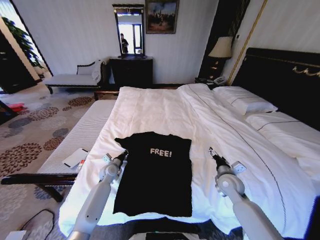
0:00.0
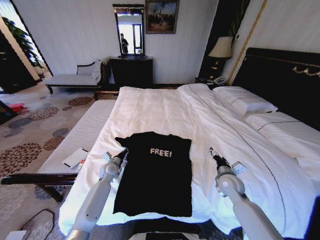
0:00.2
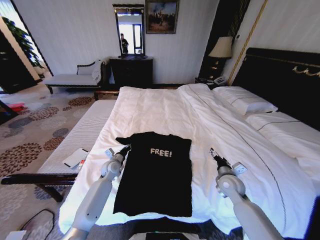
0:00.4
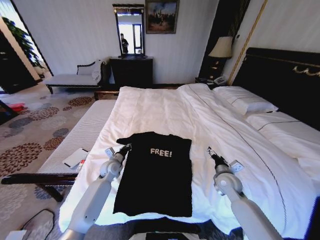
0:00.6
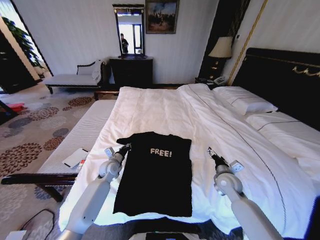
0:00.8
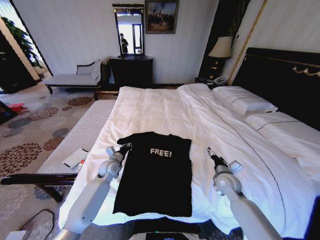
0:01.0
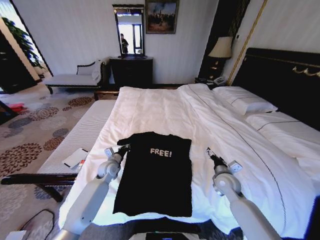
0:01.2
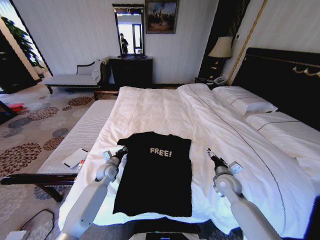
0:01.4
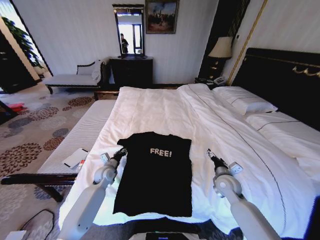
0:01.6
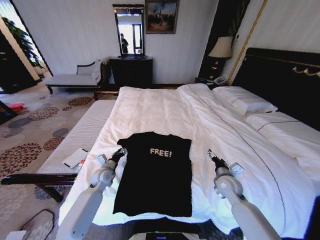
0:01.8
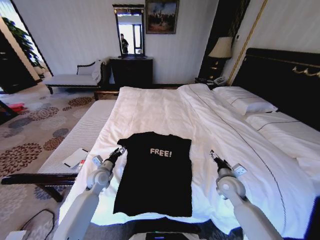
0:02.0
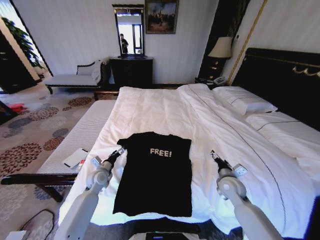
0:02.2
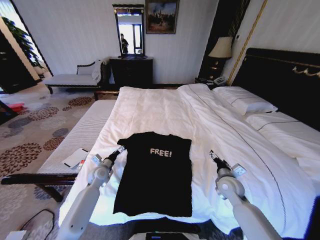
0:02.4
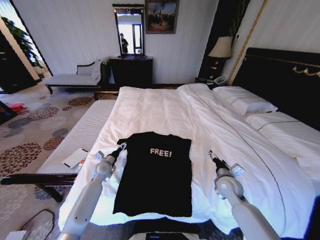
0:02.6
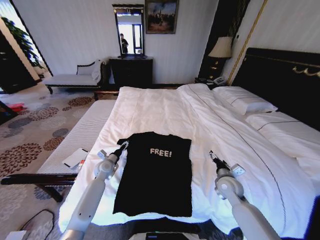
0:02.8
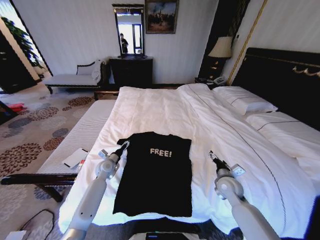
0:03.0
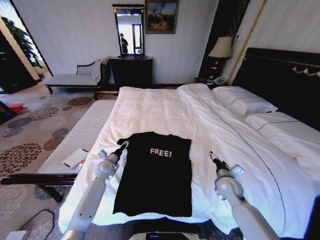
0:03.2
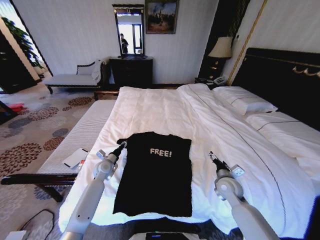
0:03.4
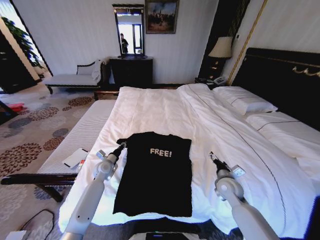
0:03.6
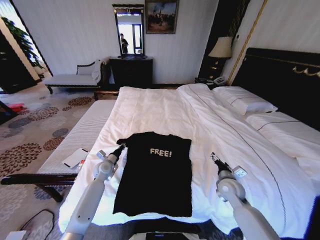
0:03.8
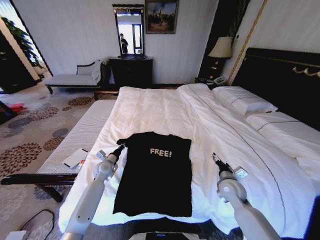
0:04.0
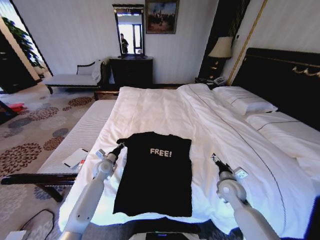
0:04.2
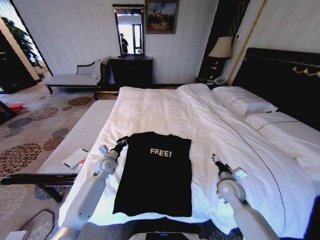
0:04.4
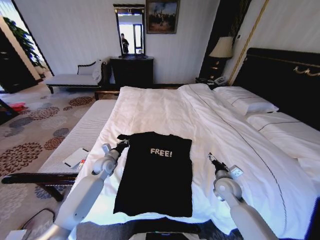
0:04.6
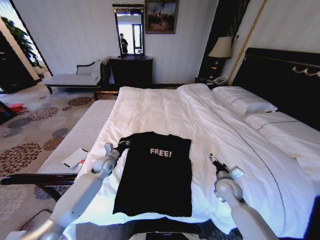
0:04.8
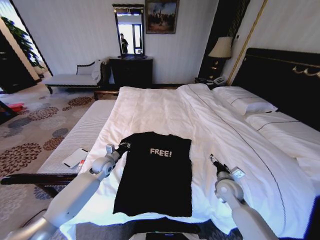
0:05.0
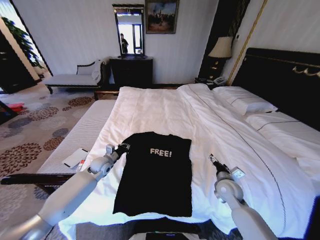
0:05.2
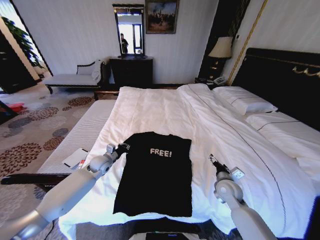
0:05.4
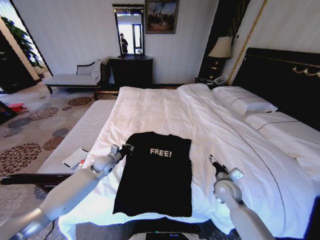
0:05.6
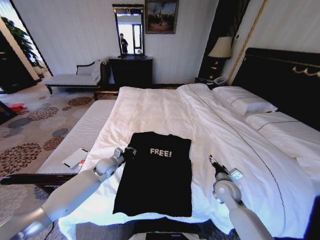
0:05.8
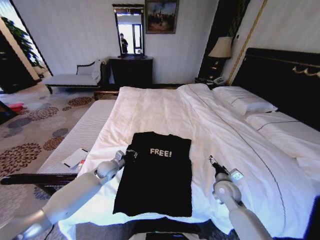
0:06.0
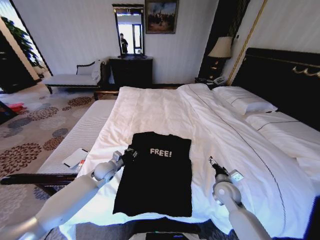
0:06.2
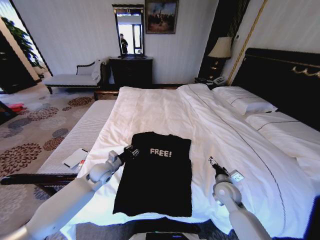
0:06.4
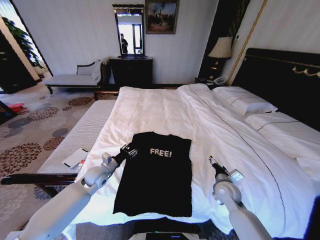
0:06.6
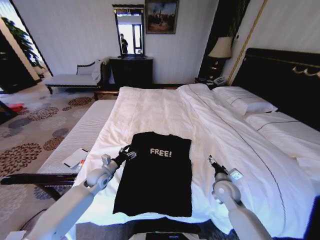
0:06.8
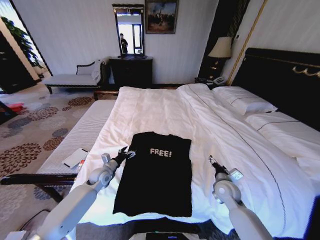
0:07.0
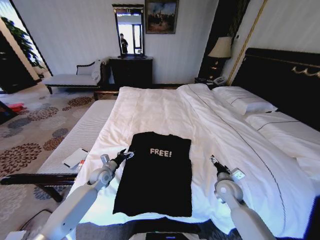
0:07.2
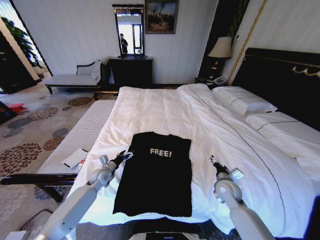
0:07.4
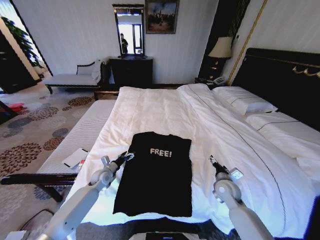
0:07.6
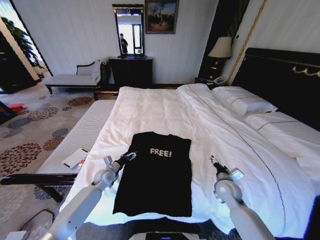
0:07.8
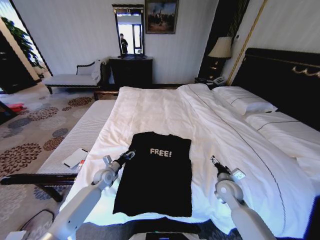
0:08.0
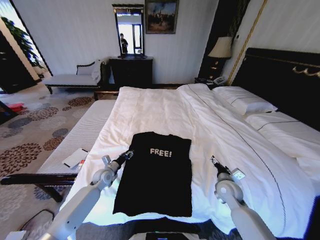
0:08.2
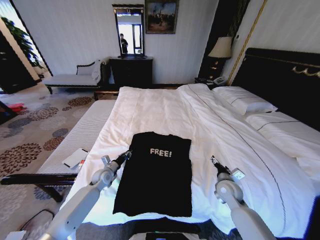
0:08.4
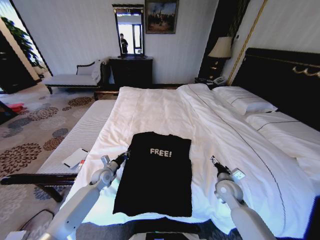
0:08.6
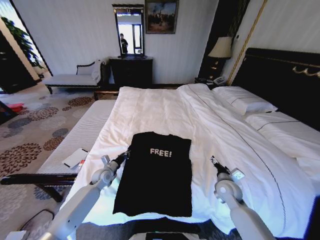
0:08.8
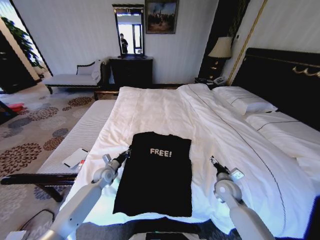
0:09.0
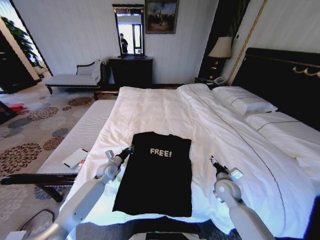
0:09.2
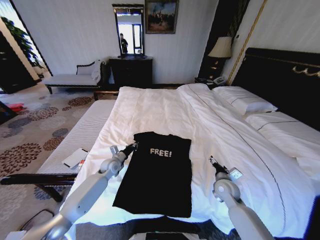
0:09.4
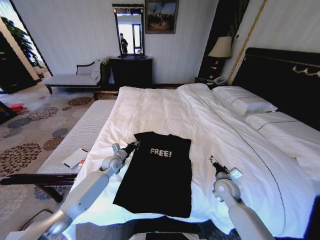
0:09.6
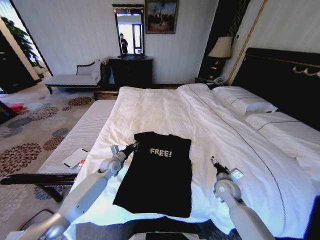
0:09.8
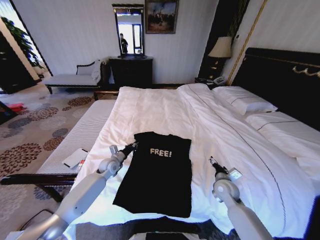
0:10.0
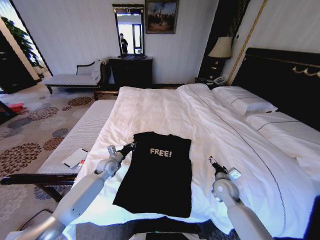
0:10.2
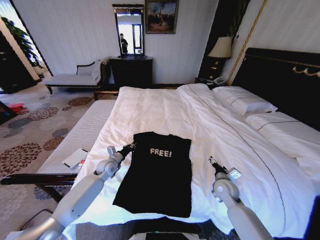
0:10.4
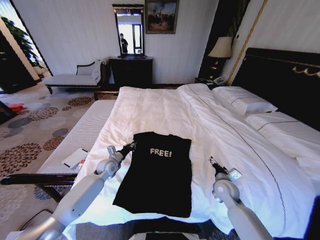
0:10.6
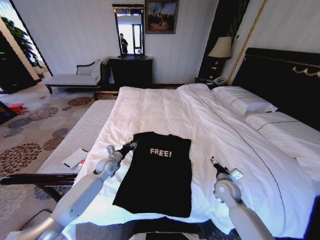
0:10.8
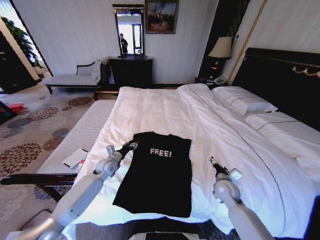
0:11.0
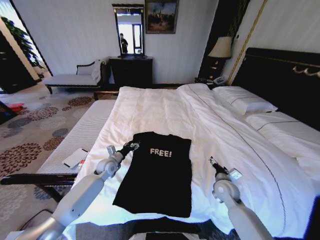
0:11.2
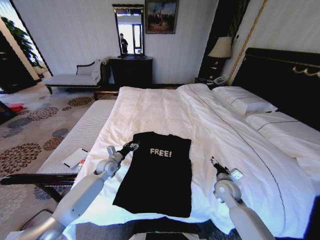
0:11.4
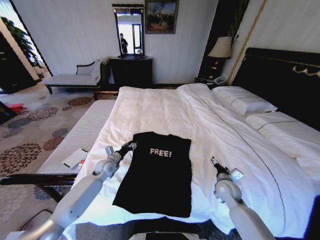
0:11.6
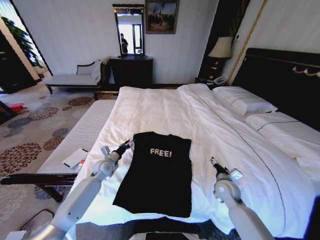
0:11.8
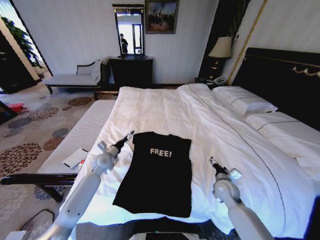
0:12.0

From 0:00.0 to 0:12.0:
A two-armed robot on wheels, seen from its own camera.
Task of the whole recording: Fold the clothes on the bed.
From 0:01.6 to 0:03.0: The left gripper opens its fingers.
From 0:03.0 to 0:04.4: The left gripper closes up.
From 0:06.0 to 0:07.6: The left gripper shifts by some 5 cm, and opens.
From 0:07.6 to 0:09.0: The left gripper closes its fingers.
From 0:09.0 to 0:10.4: The left gripper changes place by some 5 cm.
From 0:10.4 to 0:12.0: The left gripper goes roughly 5 cm upward, and opens its fingers.

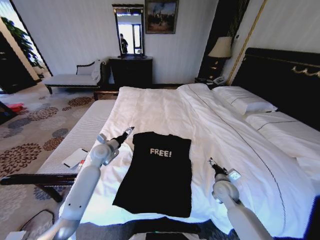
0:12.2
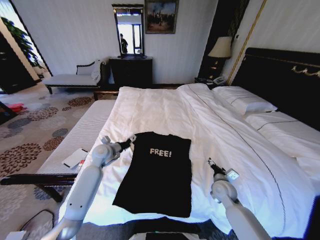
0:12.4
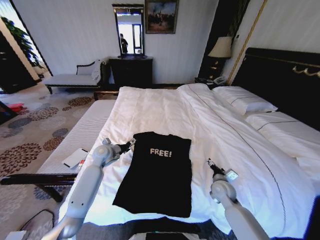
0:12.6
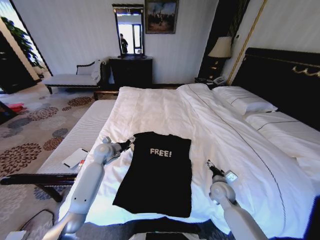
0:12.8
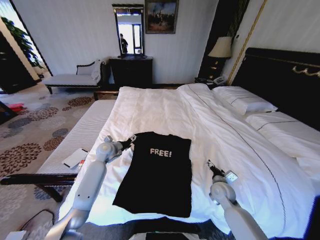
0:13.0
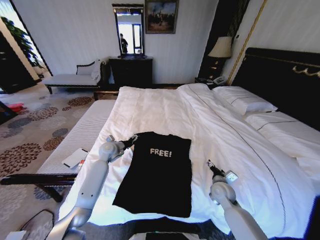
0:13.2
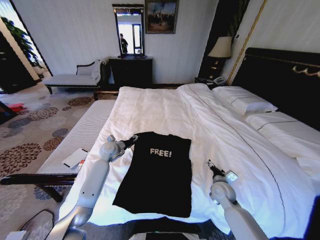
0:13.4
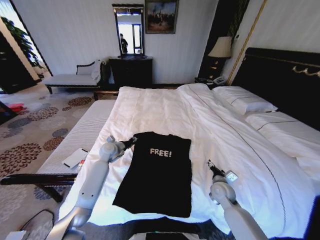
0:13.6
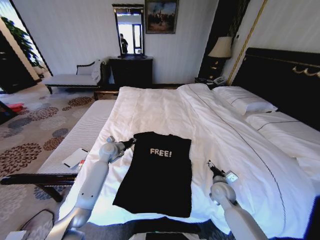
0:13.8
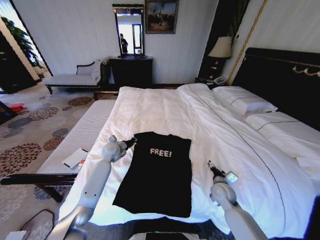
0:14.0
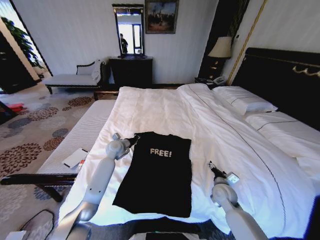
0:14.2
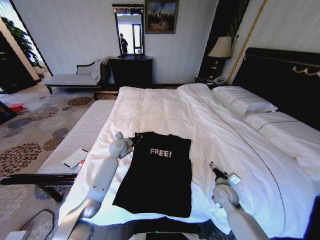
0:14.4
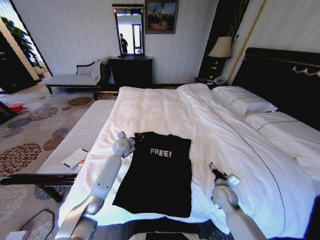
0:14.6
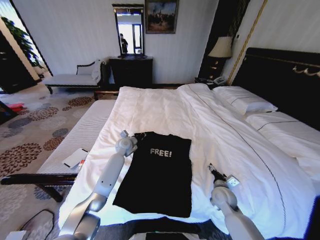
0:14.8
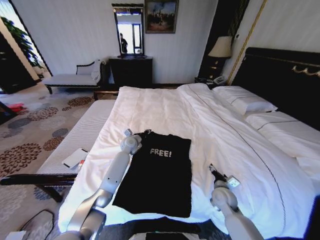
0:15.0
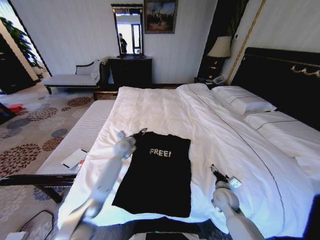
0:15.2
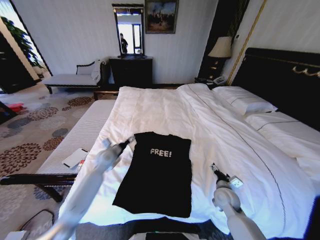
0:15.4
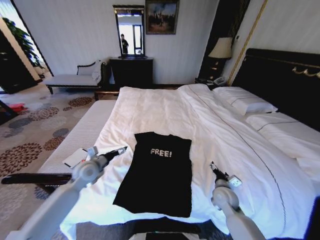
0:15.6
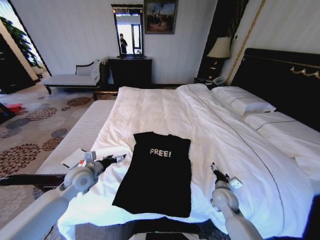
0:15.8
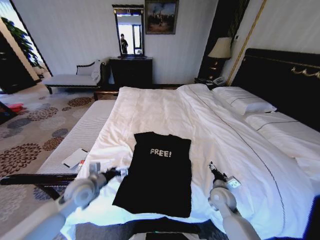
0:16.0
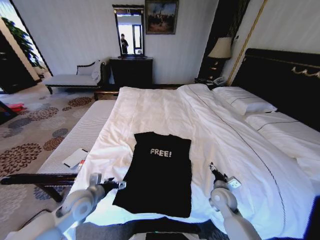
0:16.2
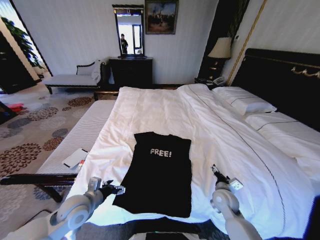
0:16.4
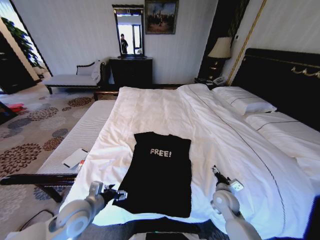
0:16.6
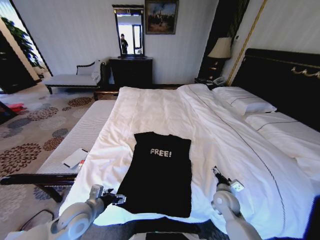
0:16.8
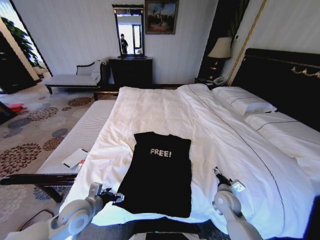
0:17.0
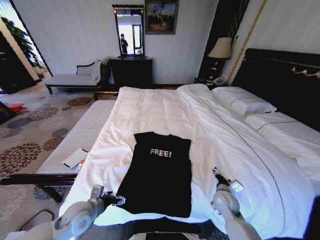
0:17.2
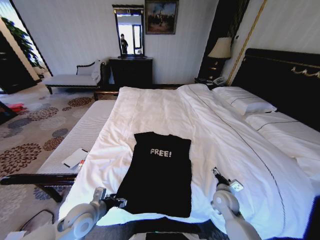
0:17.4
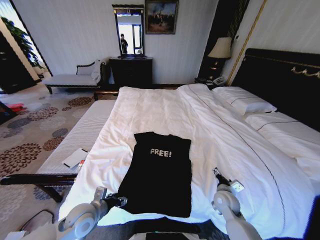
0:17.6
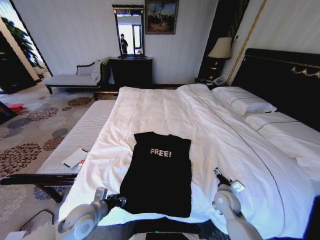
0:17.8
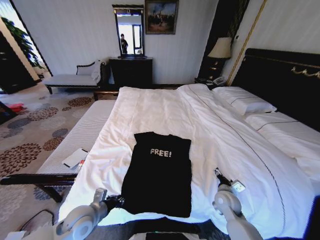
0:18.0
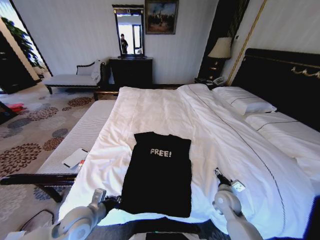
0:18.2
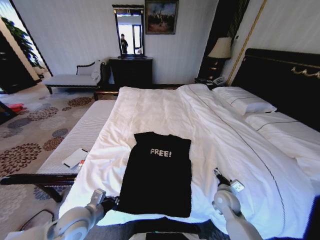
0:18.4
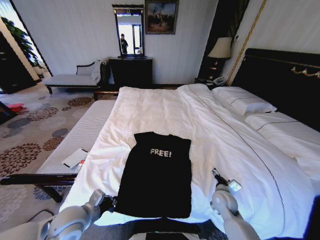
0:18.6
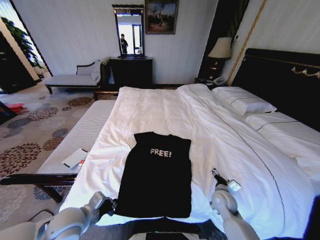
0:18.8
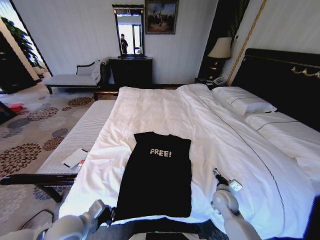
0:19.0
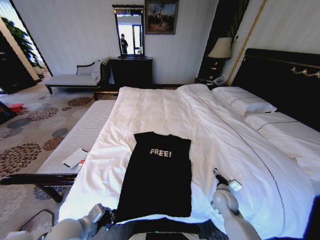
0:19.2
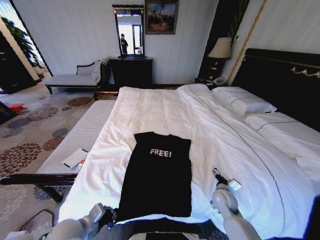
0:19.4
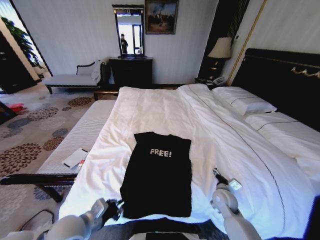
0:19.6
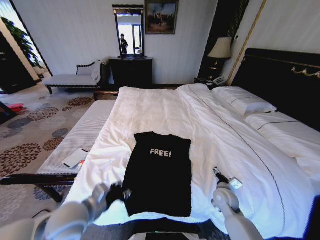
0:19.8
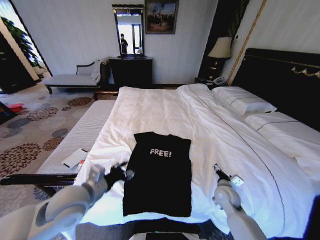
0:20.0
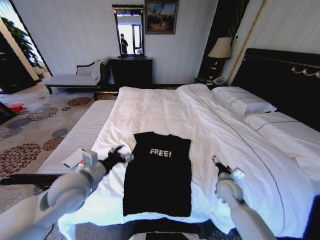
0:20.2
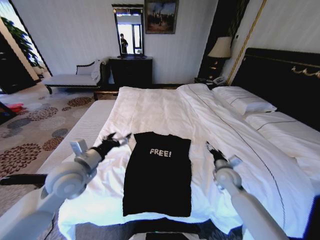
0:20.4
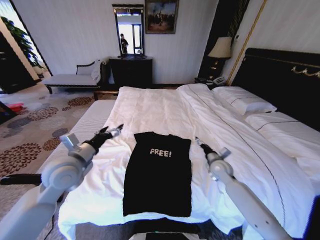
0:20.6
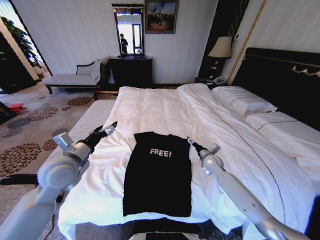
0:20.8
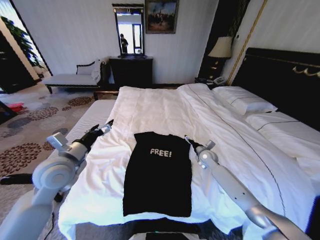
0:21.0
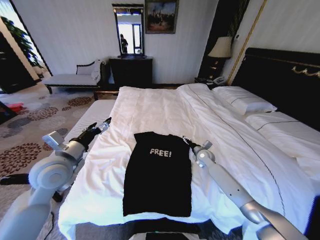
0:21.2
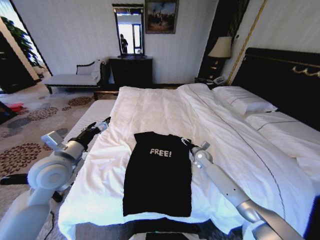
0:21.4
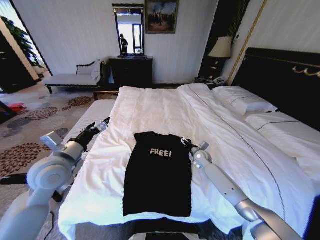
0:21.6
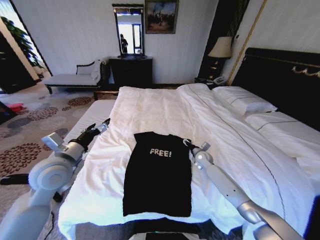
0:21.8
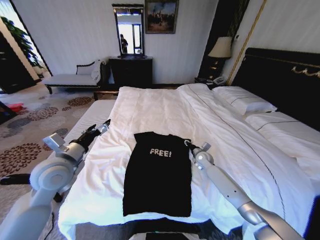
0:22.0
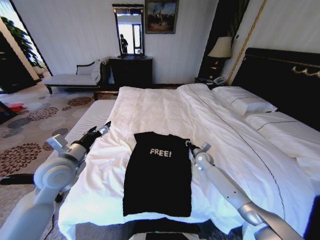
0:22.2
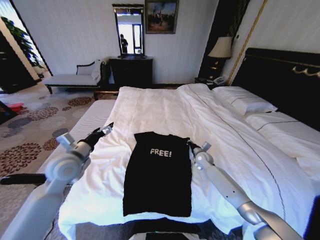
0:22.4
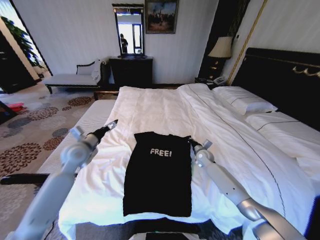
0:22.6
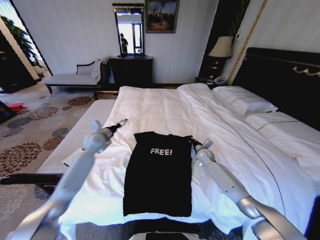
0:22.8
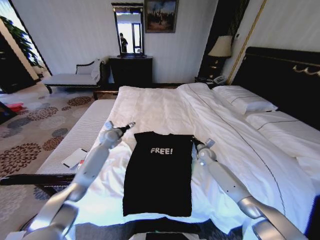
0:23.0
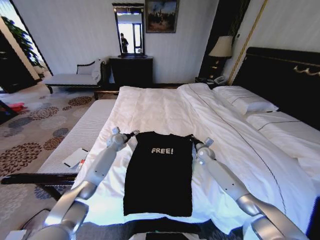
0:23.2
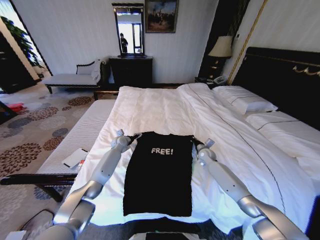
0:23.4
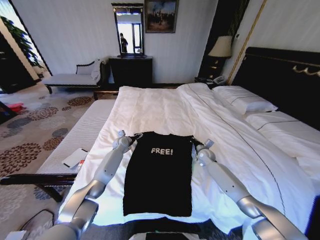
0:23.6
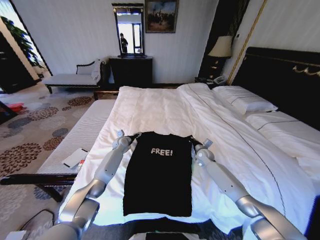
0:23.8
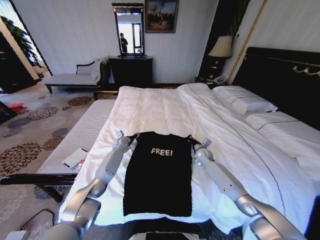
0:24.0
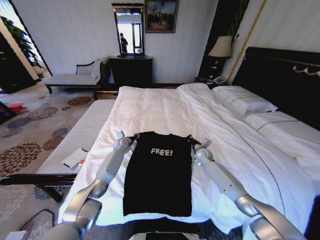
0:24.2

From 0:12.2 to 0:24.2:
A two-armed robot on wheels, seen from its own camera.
Task of the whole recording: Fold the clothes on the bed.
From 0:12.2 to 0:13.8: The left gripper shifts by approximately 5 cm, and closes.
From 0:13.8 to 0:15.2: The left gripper heads to the right, covering approximately 10 cm.
From 0:15.2 to 0:16.6: The left gripper heads backward, covering roughly 30 cm, and opens.
From 0:16.6 to 0:18.2: The left gripper closes.
From 0:18.2 to 0:19.8: The left gripper is displaced upward by about 10 cm, and opens.
From 0:19.8 to 0:21.2: The right gripper travels forward by approximately 20 cm. Meanwhile the left gripper is displaced forward, upward and to the left by about 15 cm, and opens up.
From 0:21.2 to 0:22.6: The right gripper closes; the left gripper moves forward, approximately 10 cm.
From 0:22.6 to 0:24.2: The left gripper is displaced forward, downward and to the right by about 30 cm, and closes its fingers.
